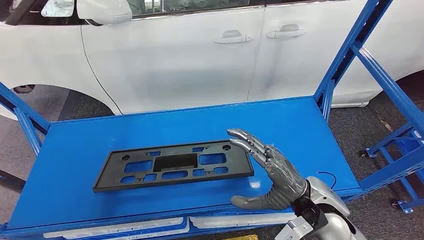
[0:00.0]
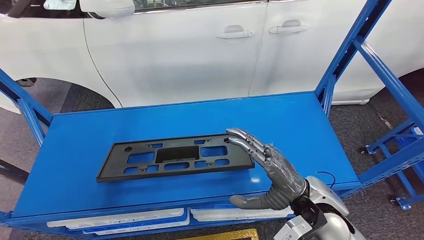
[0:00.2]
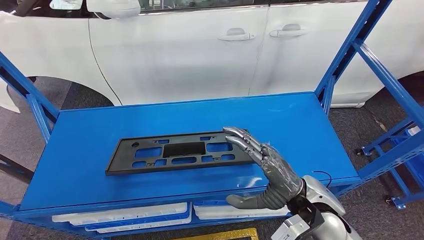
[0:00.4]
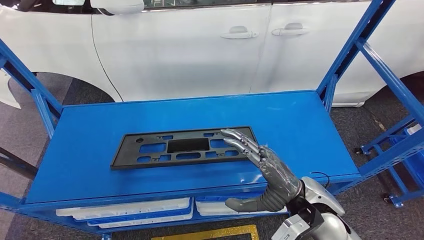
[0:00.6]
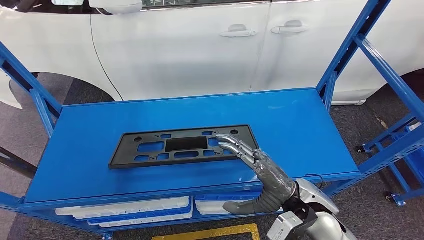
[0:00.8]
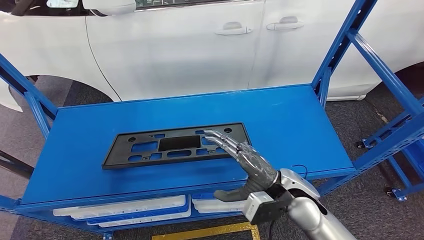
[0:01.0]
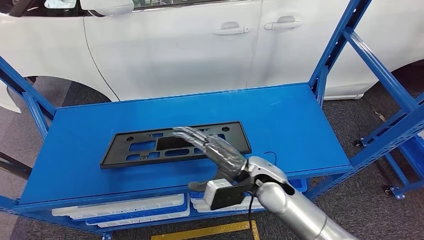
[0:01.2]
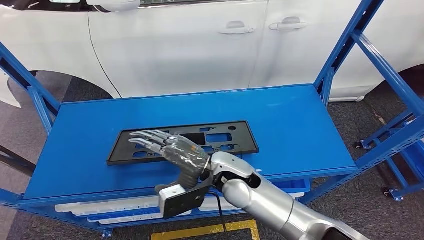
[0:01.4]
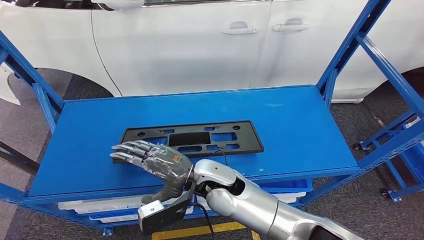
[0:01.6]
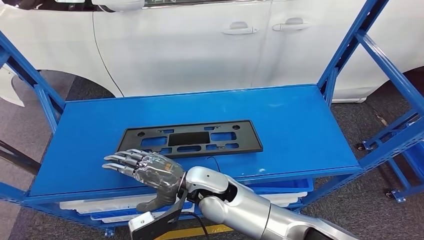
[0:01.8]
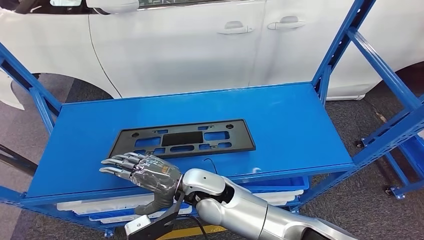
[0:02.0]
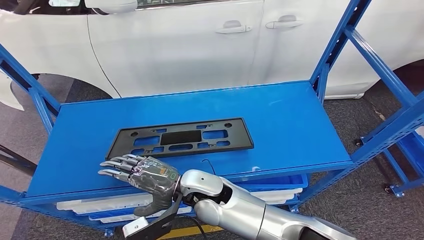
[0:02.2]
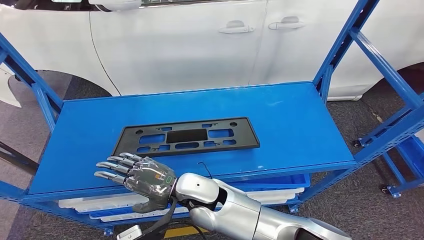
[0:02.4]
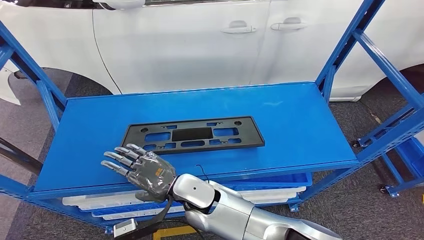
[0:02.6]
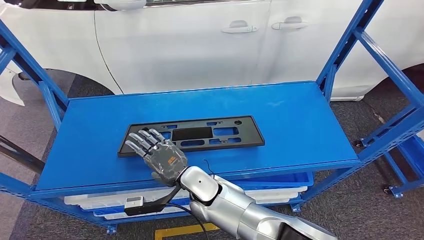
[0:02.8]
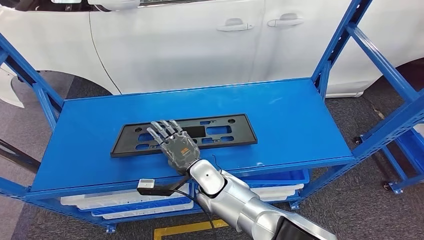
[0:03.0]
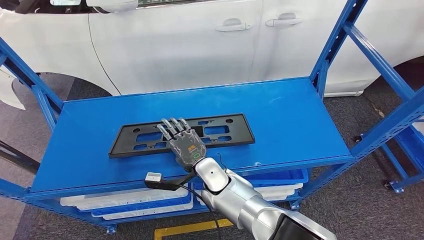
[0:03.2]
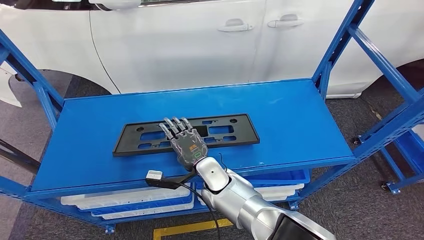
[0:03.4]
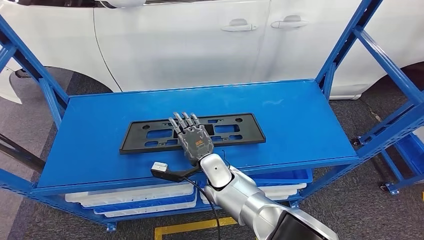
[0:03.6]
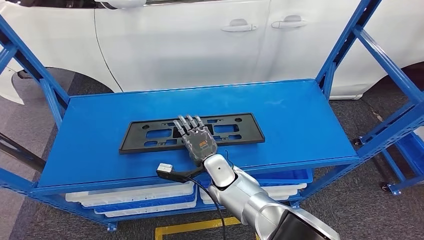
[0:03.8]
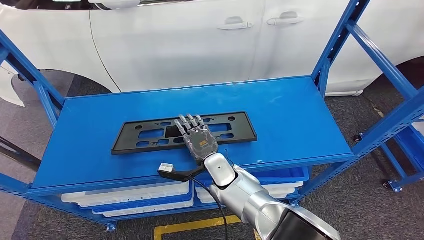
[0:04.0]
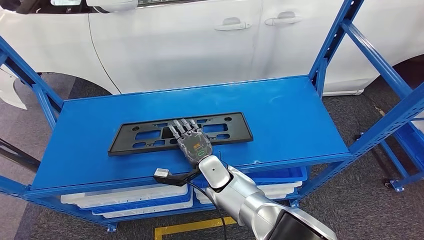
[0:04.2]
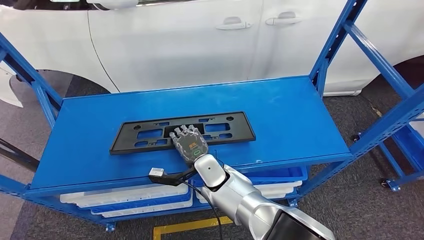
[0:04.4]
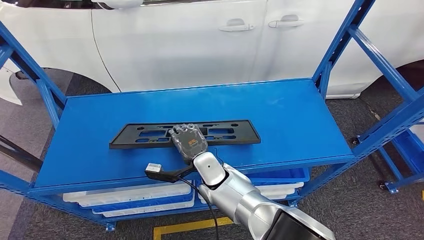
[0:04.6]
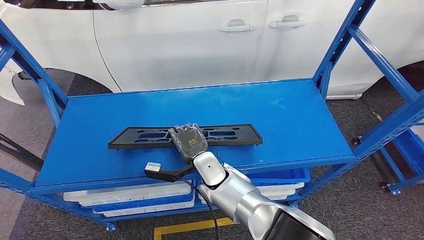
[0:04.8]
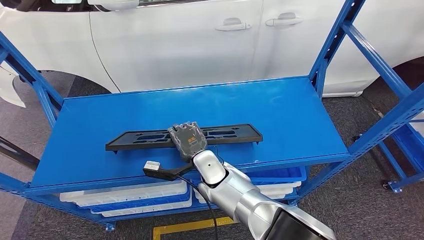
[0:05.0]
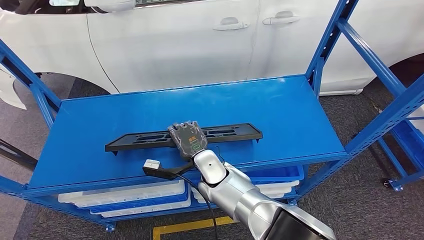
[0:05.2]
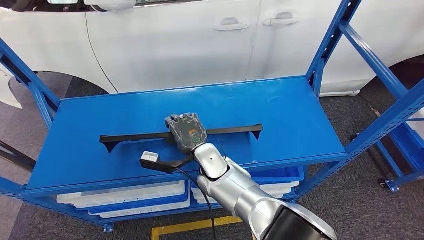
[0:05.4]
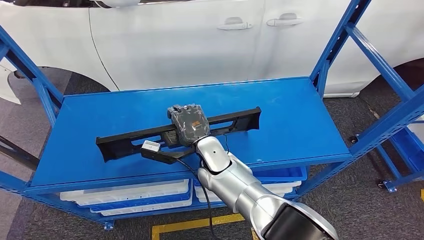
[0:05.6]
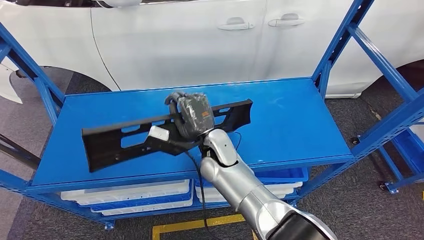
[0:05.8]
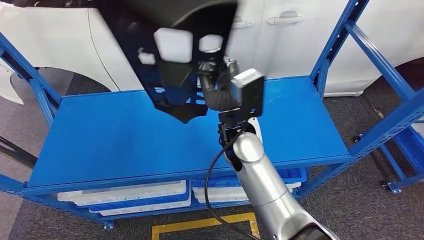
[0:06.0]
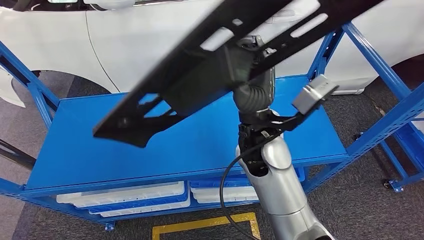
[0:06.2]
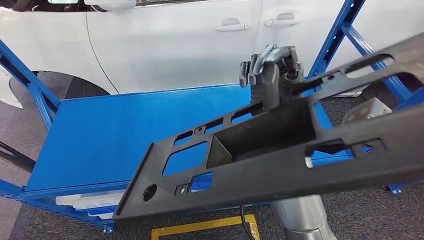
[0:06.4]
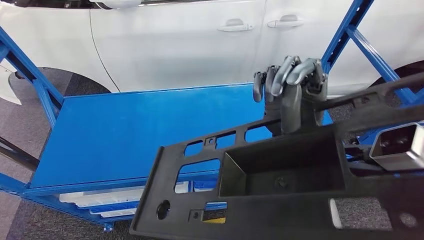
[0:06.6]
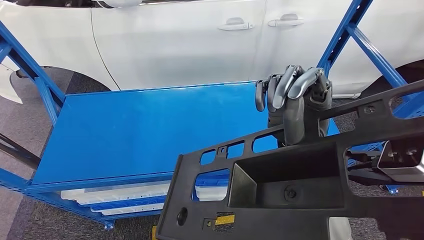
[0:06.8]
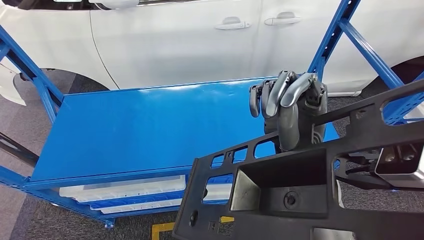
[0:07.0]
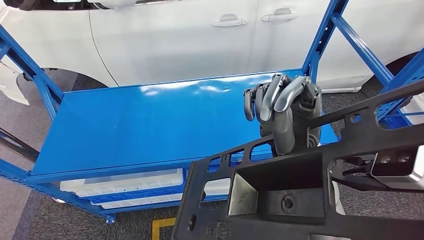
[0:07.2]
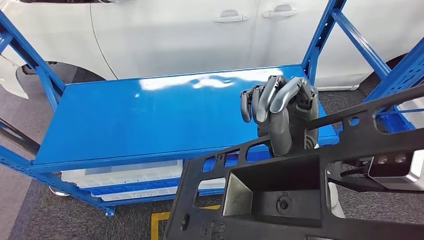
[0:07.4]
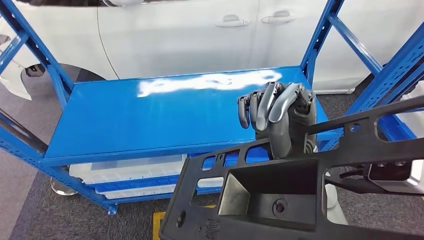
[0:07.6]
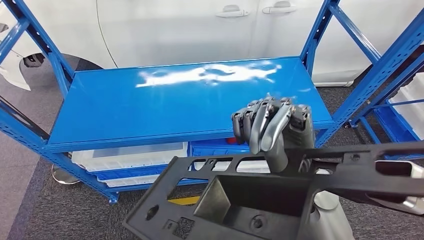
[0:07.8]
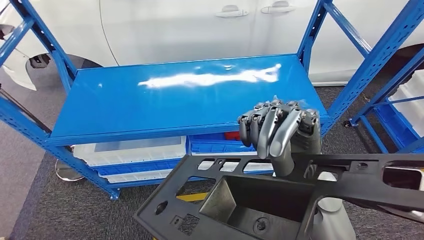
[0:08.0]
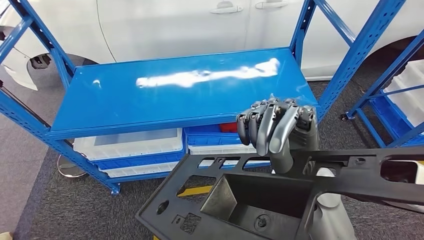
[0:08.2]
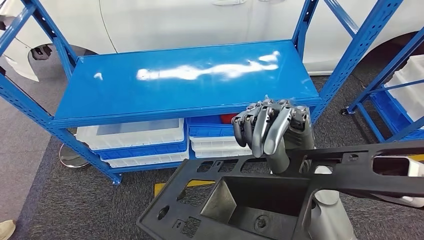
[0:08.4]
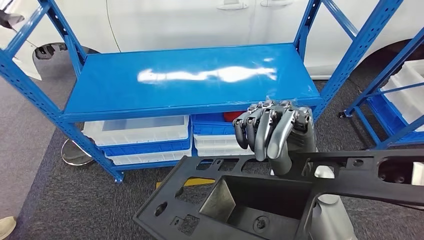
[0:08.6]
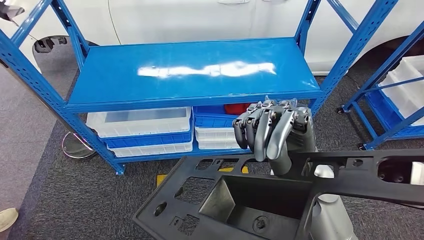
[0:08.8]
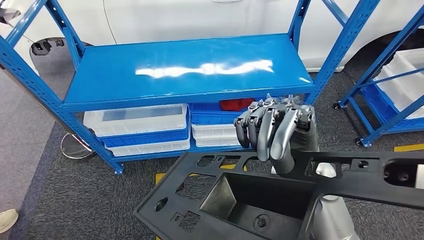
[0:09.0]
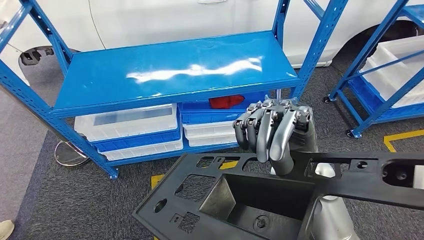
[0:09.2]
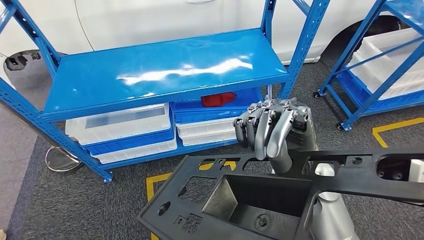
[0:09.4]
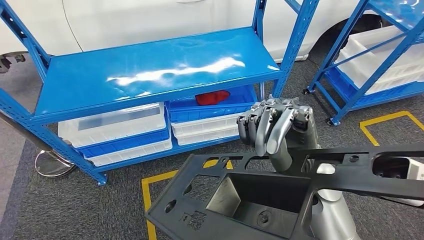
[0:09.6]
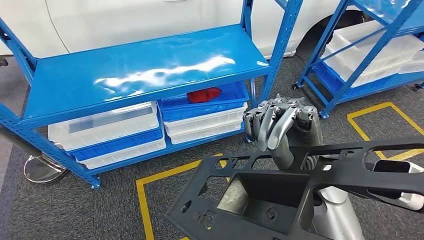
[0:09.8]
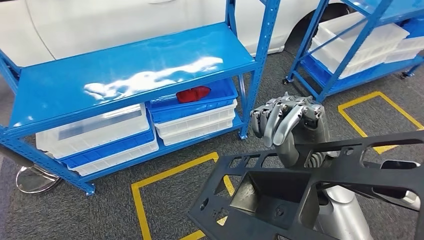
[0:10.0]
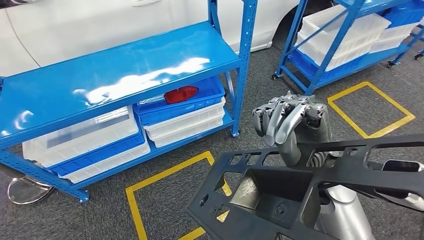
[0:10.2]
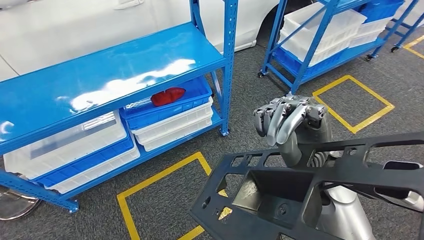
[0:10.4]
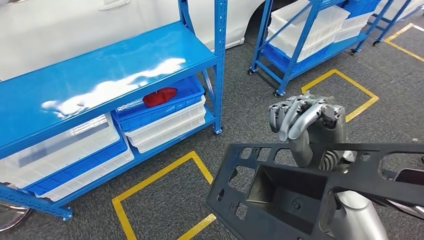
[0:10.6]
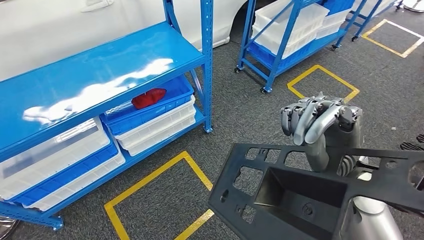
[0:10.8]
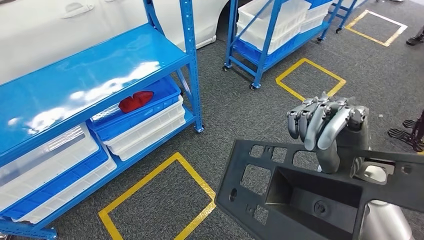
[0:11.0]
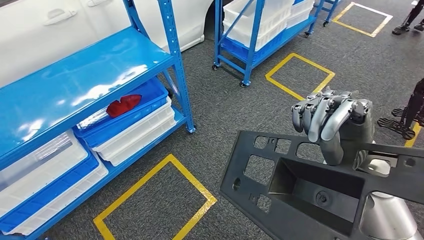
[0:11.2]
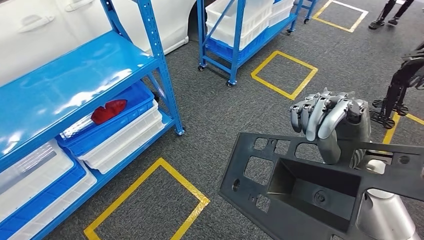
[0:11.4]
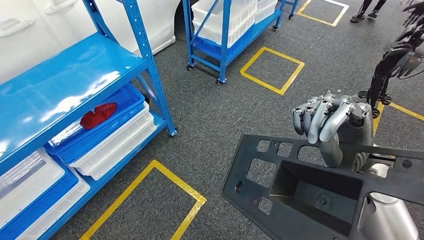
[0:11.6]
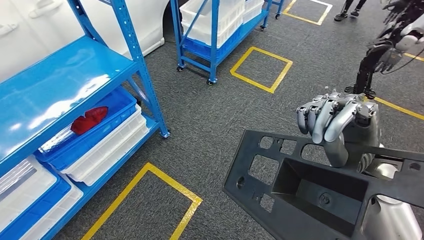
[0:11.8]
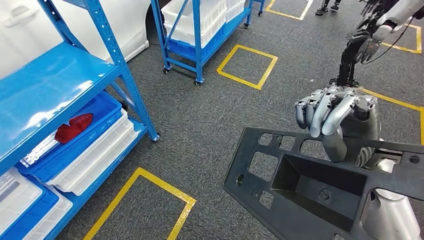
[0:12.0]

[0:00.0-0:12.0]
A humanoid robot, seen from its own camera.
Step, 0:00.0 to 0:07.4: Pick up the small component from the shelf.
0:03.0 to 0:04.4: There are only small adjustments of the hands.

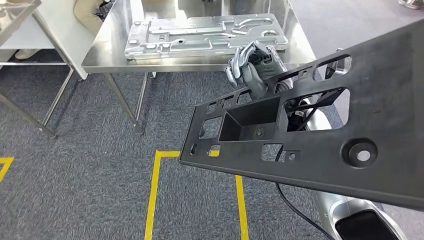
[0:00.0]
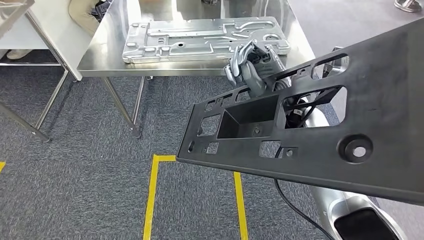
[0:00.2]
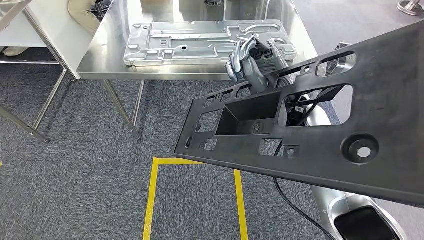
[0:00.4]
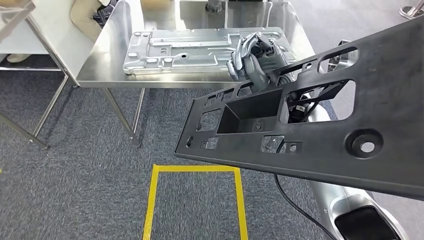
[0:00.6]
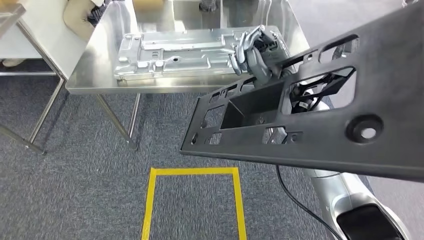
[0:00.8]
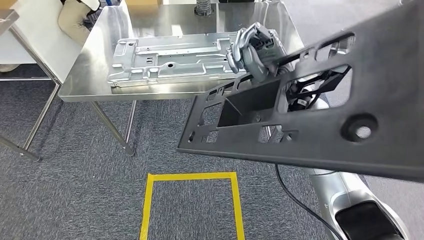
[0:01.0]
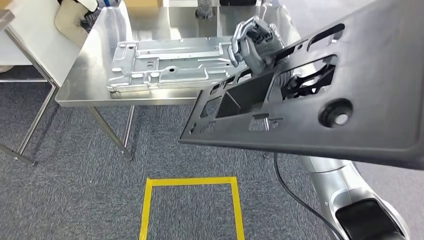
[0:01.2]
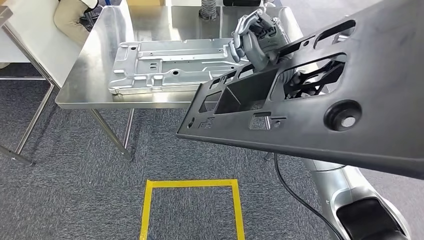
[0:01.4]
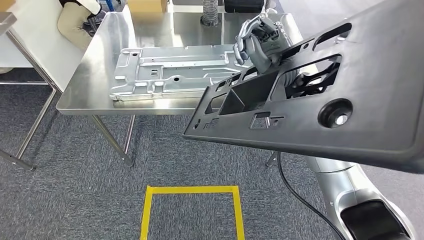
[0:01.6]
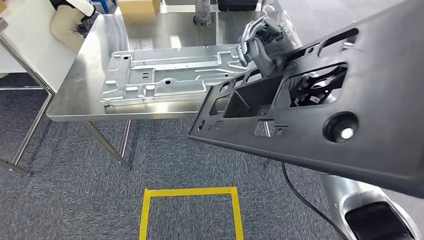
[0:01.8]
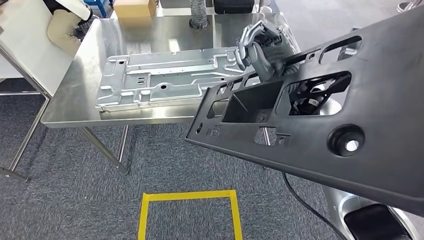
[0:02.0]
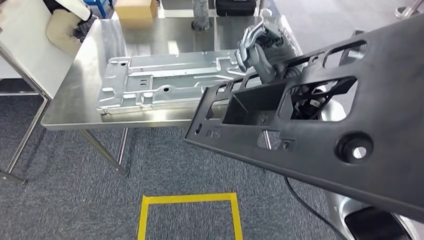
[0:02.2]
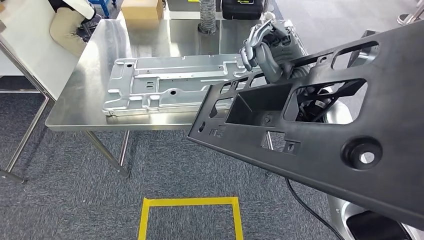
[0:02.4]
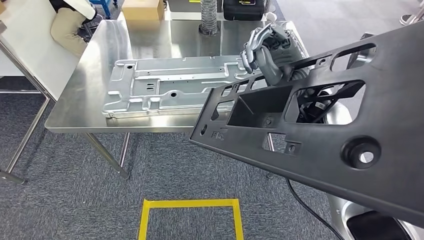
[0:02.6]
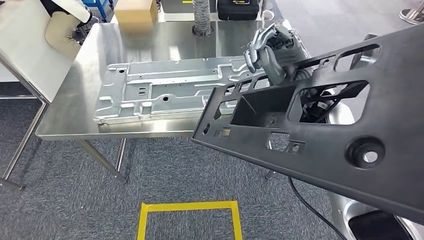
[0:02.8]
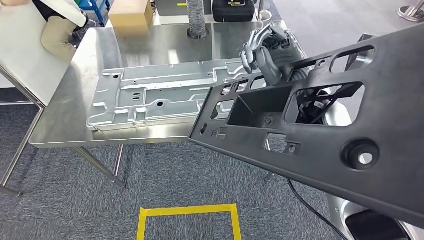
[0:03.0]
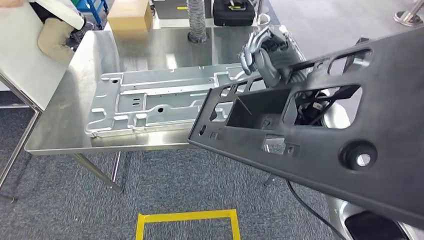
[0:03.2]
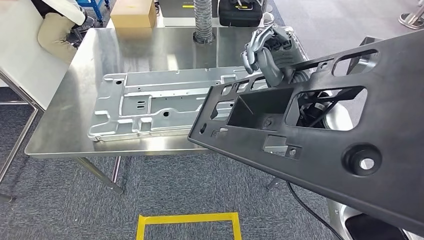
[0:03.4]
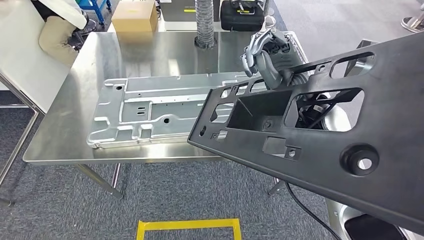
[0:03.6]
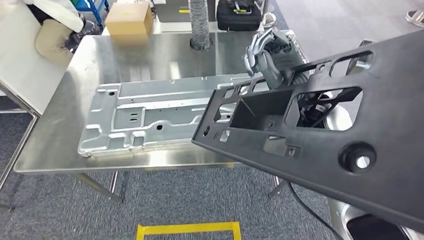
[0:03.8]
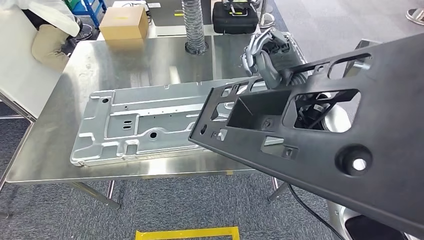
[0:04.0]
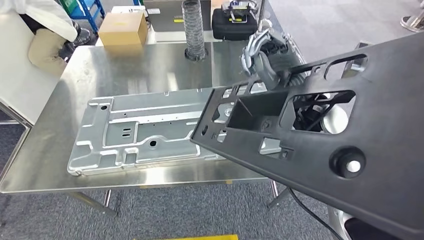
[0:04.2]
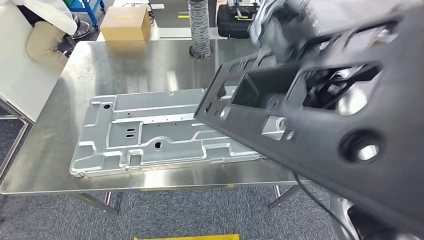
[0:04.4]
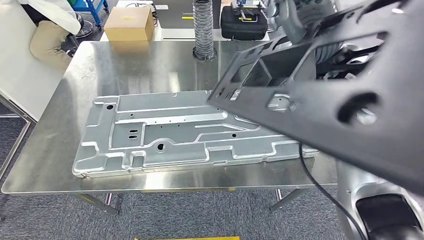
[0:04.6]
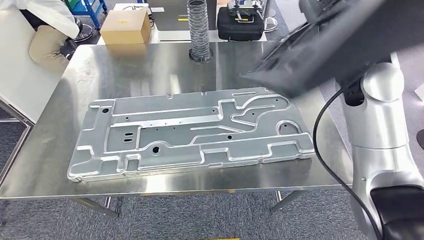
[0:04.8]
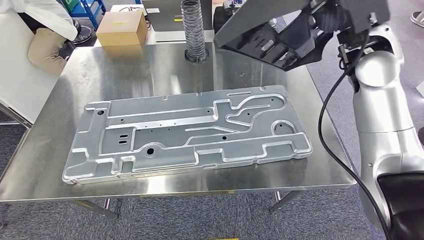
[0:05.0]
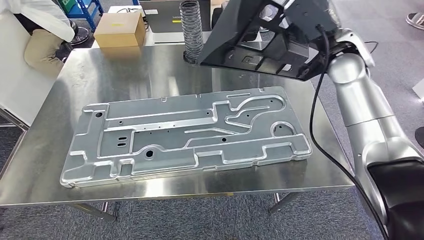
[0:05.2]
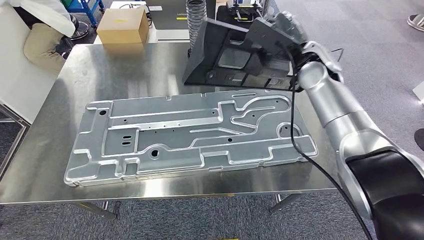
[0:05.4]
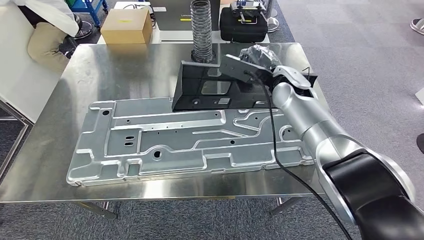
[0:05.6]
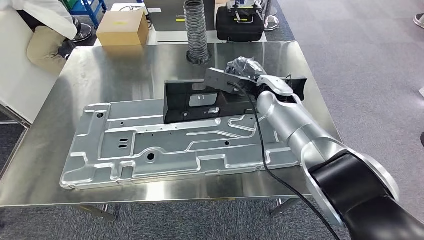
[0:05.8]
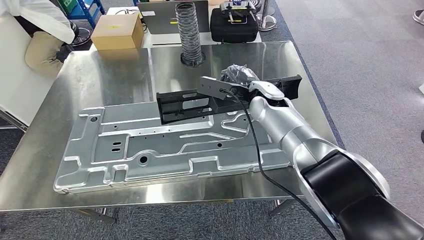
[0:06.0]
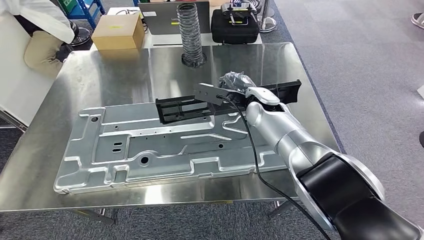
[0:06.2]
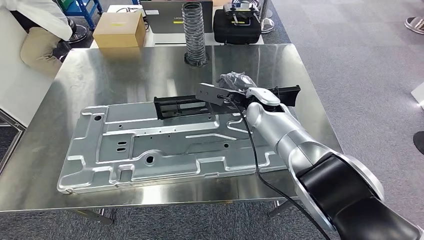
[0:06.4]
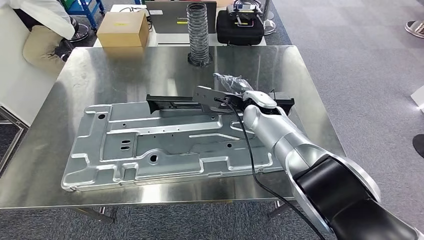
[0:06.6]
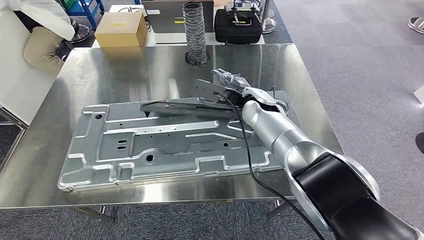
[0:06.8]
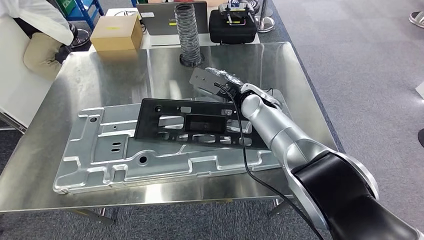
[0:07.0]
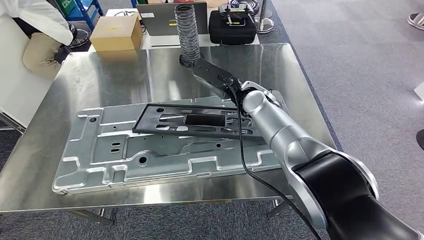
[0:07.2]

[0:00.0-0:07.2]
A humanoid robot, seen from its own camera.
Step, 0:00.0 to 0:03.6: Move the small component to the workbench.
